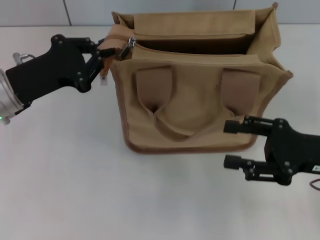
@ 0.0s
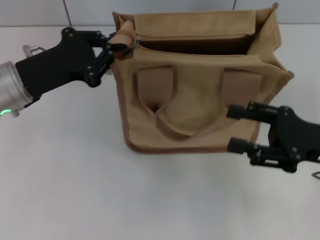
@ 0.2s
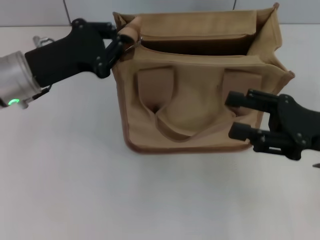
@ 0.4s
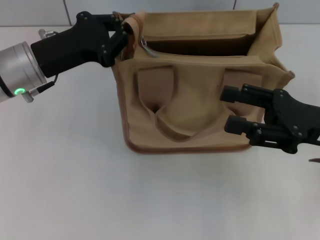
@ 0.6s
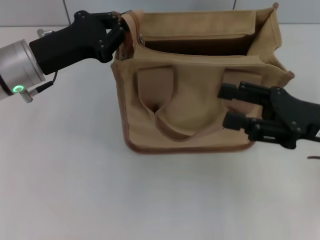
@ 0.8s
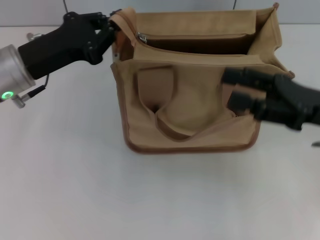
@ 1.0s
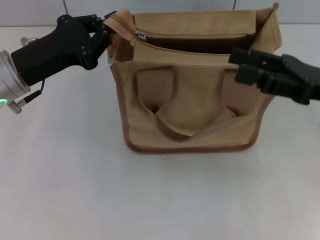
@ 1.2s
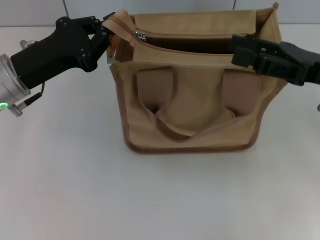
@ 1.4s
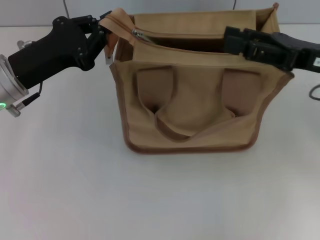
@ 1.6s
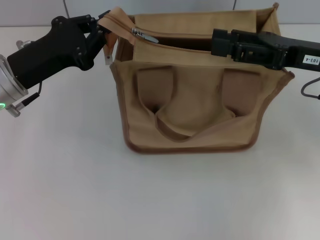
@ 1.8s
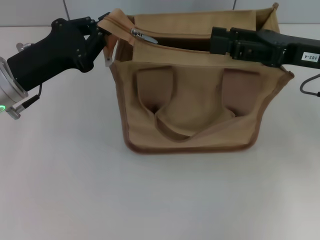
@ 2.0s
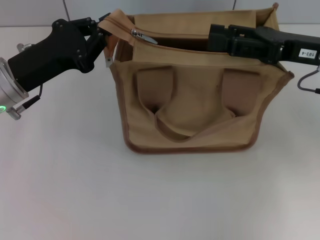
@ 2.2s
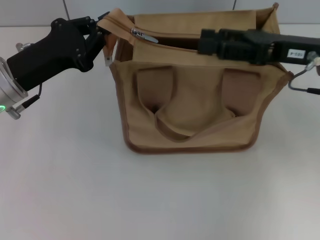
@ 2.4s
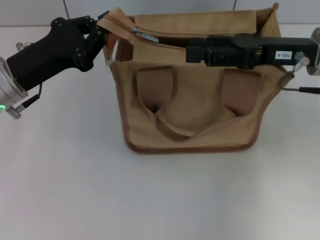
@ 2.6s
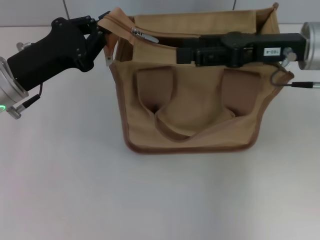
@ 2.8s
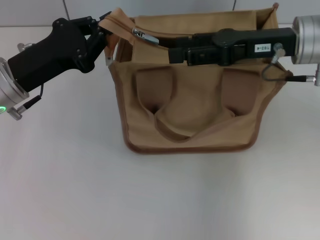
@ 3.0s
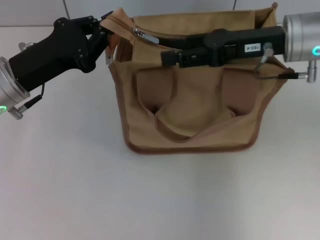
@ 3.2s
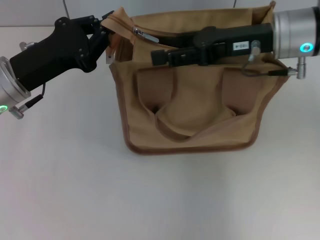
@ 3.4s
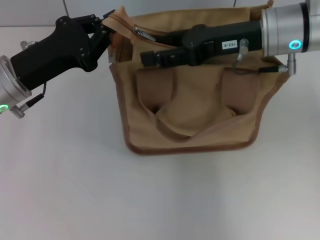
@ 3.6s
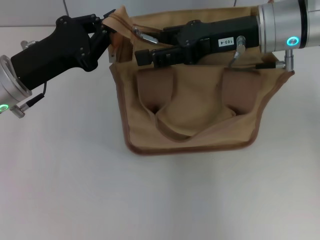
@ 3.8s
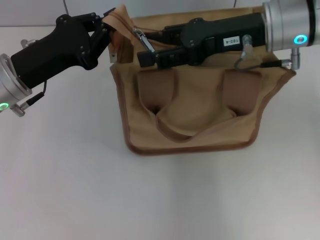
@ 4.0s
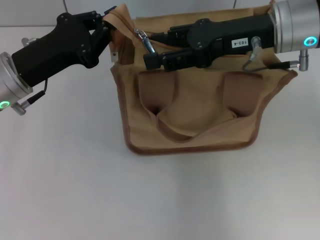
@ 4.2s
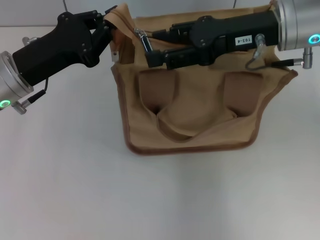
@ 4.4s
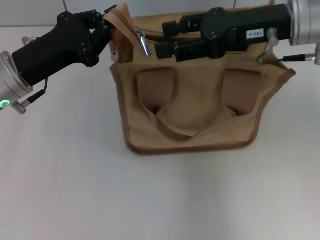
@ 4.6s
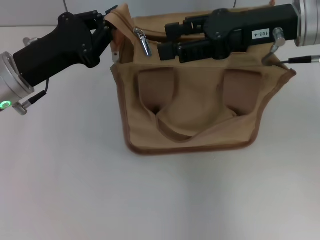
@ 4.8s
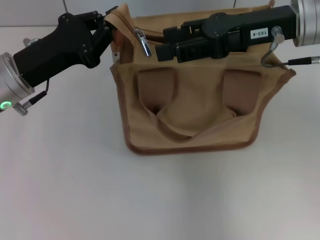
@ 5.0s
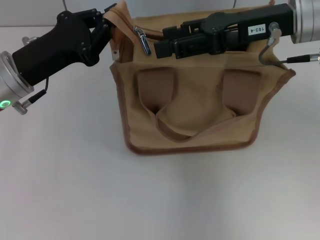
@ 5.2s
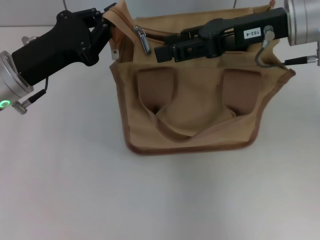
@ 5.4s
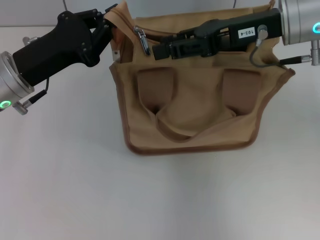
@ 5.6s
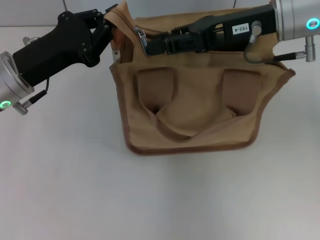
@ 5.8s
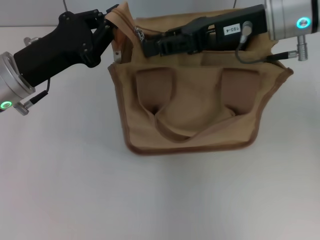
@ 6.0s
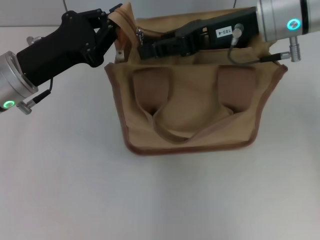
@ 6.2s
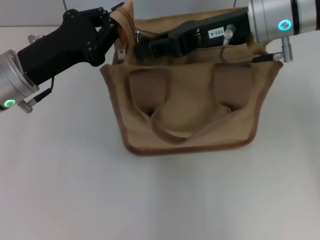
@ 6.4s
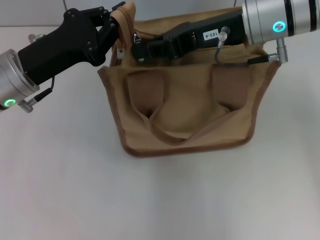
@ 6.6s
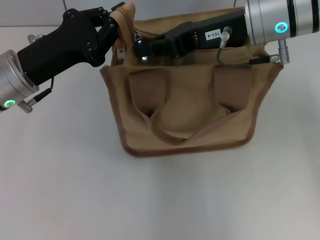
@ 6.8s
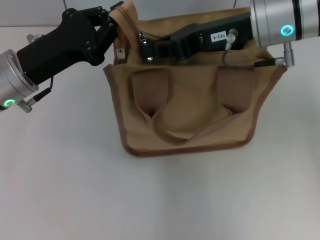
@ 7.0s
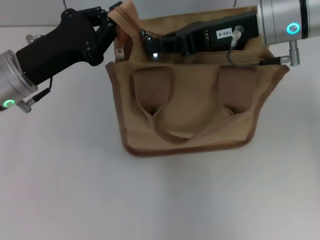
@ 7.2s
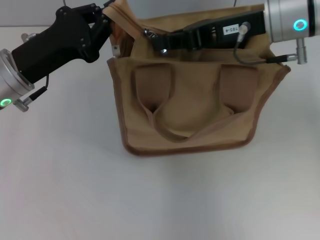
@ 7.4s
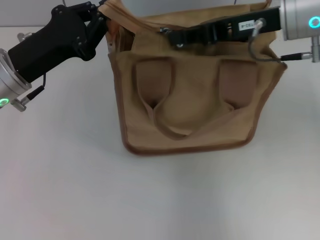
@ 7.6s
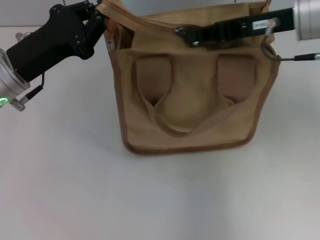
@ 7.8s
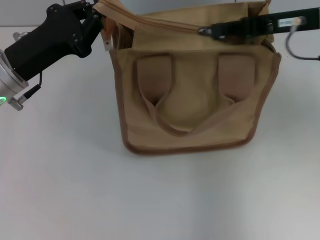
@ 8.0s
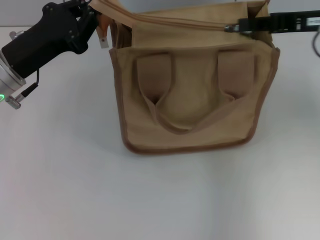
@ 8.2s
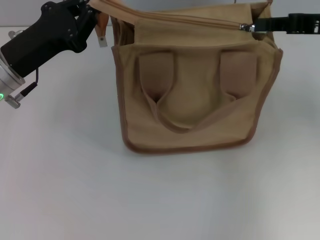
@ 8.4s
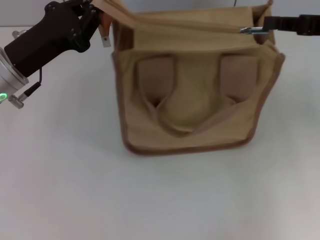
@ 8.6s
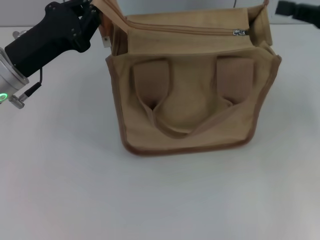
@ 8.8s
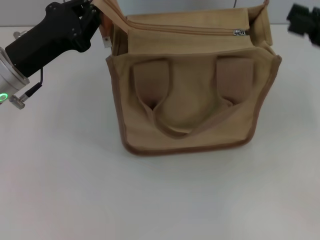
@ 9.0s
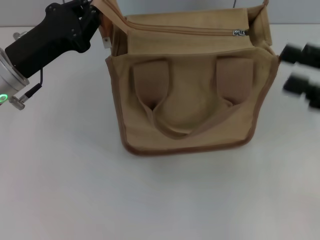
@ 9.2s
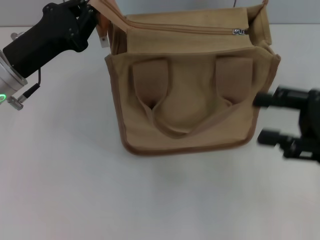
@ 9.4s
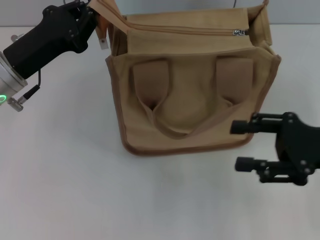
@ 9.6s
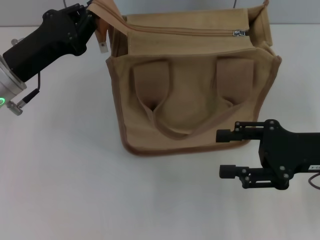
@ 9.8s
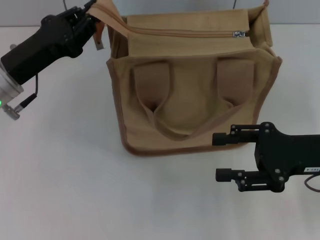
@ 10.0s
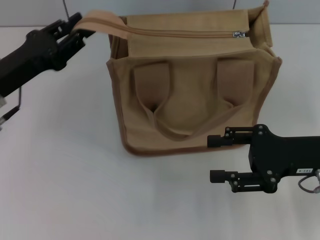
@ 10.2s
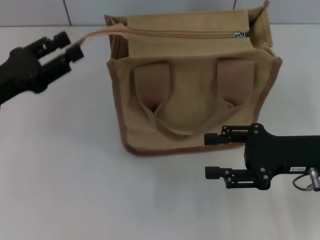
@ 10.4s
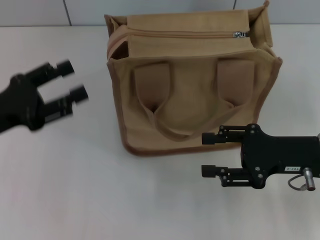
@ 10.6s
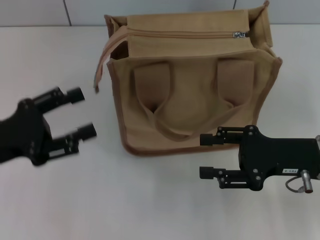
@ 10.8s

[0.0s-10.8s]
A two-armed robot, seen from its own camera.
Step, 0.0s to 8.4s: Pull up the zipper with your right hand.
Step, 8.8s to 10.4s: Grab the zipper with your left hand.
0.0s to 1.6s: The right gripper shifts roughly 10 cm forward and upward.
1.6s to 3.0s: The right gripper travels to the left by roughly 5 cm.
3.0s to 4.6s: The grippers move only a little.
4.6s to 6.2s: The right gripper closes its fingers.
6.2s to 7.8s: The right gripper travels to the right by some 5 cm, and closes its fingers.
7.8s to 9.2s: The right gripper travels backward, to the right and downward by about 15 cm, and opens.
9.2s to 10.8s: The left gripper heads backward and to the left, covering some 10 cm, and opens its fingers; the right gripper moves downward and to the left, approximately 10 cm.

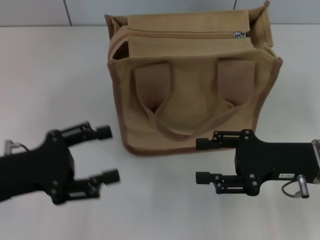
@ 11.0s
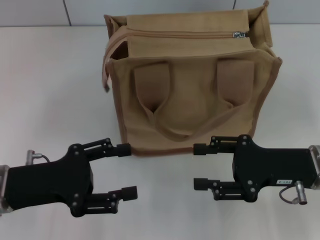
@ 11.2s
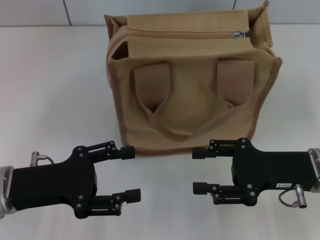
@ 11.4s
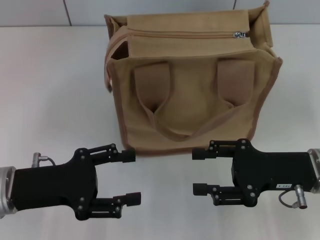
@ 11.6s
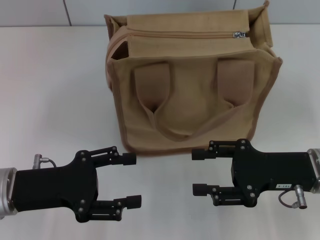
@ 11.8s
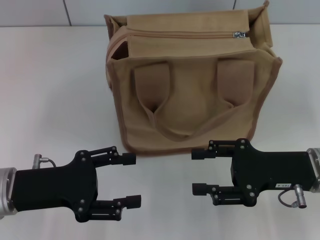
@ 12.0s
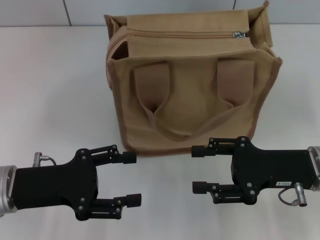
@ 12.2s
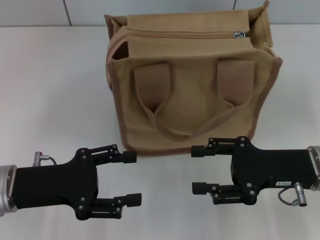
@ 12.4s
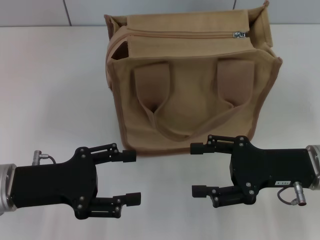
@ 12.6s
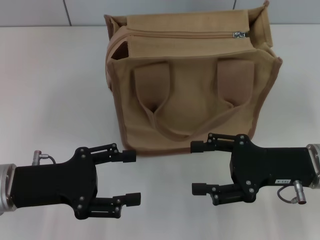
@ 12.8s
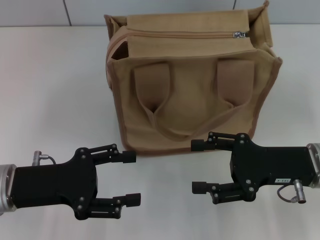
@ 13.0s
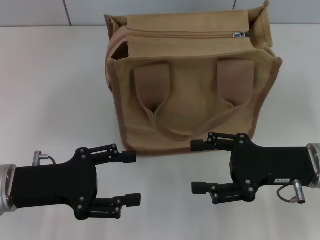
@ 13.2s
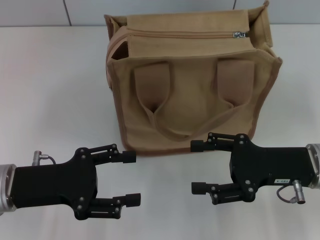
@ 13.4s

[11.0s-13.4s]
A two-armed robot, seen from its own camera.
11.0s to 12.2s: The grippers stay close to where they were, moving slightly.
12.2s to 13.4s: The two grippers keep their place.

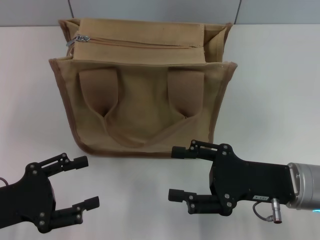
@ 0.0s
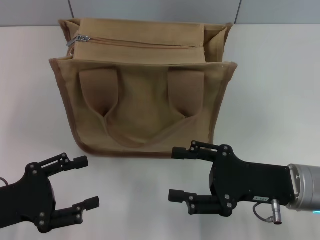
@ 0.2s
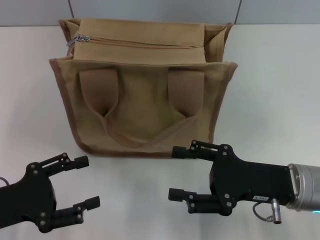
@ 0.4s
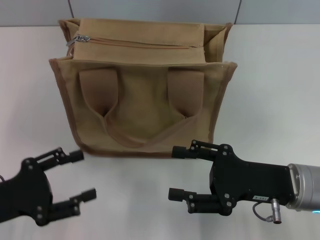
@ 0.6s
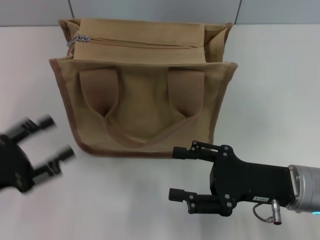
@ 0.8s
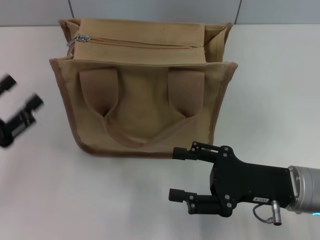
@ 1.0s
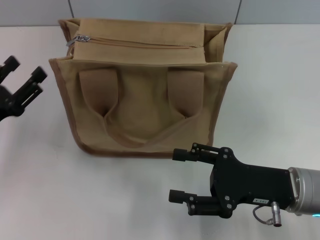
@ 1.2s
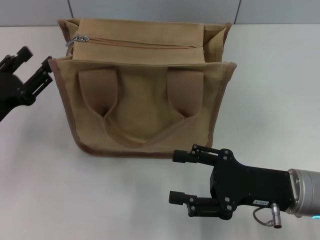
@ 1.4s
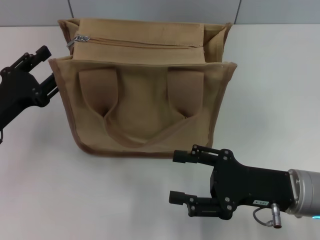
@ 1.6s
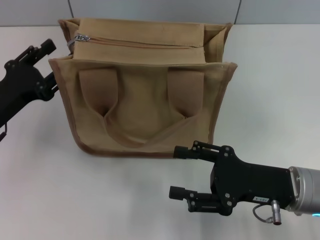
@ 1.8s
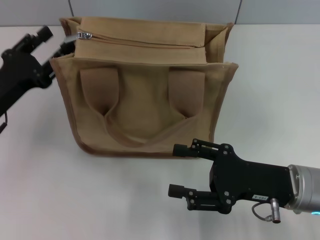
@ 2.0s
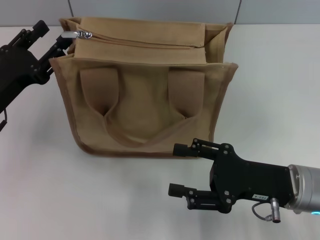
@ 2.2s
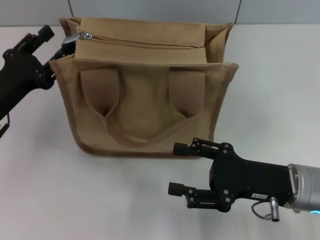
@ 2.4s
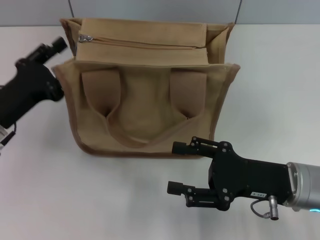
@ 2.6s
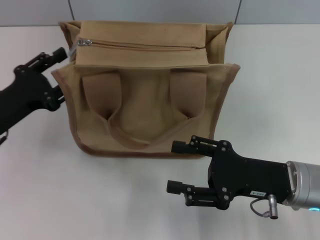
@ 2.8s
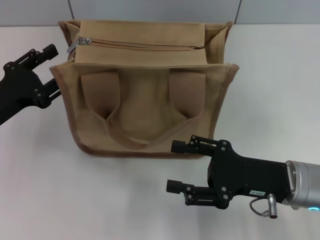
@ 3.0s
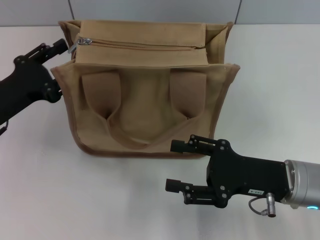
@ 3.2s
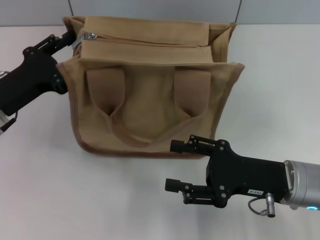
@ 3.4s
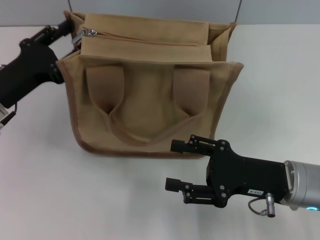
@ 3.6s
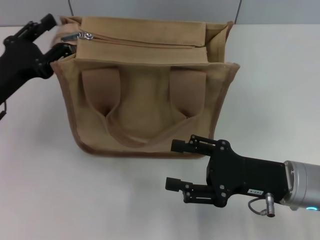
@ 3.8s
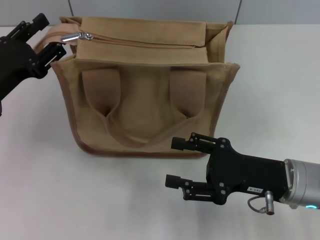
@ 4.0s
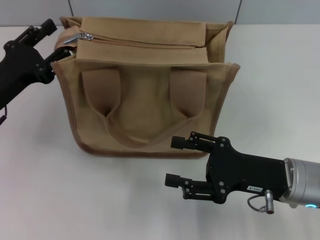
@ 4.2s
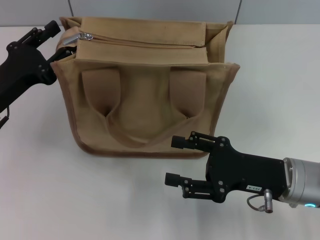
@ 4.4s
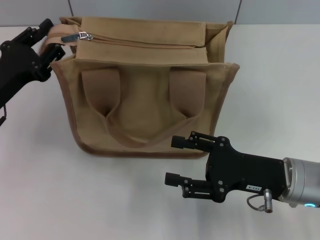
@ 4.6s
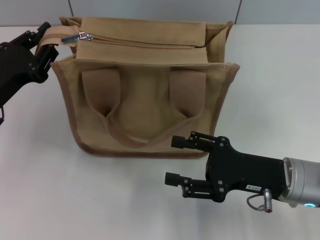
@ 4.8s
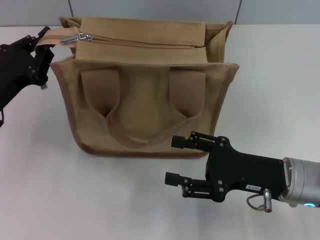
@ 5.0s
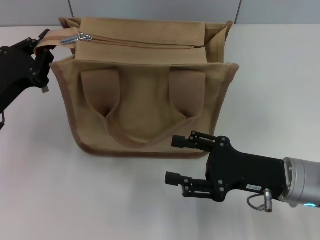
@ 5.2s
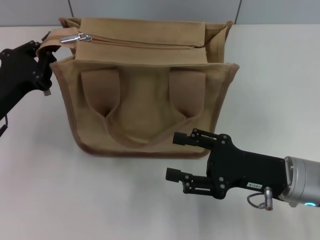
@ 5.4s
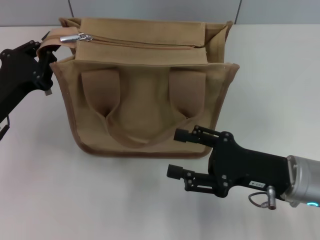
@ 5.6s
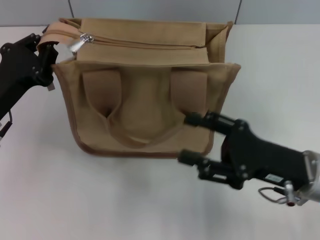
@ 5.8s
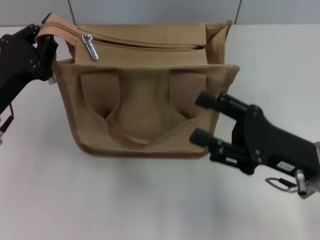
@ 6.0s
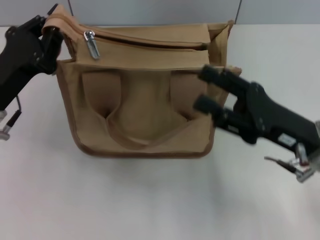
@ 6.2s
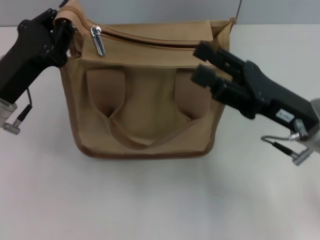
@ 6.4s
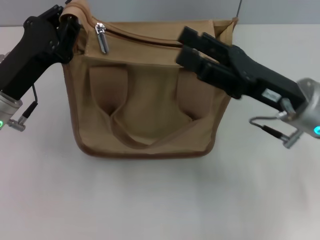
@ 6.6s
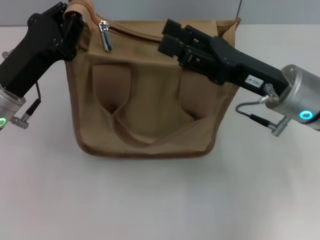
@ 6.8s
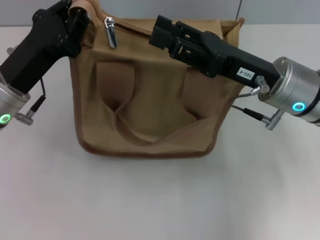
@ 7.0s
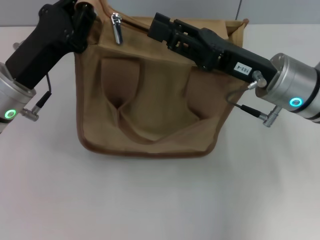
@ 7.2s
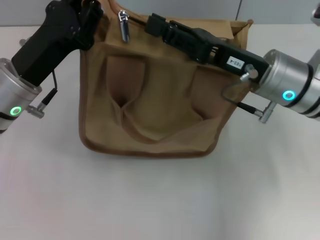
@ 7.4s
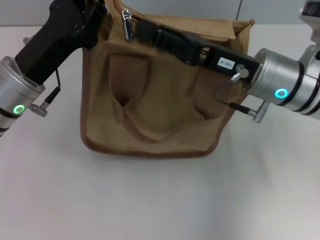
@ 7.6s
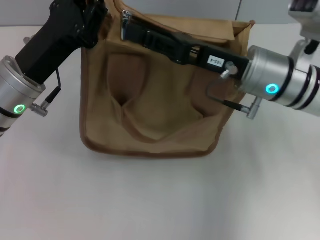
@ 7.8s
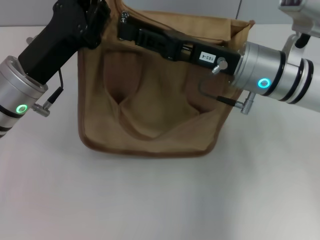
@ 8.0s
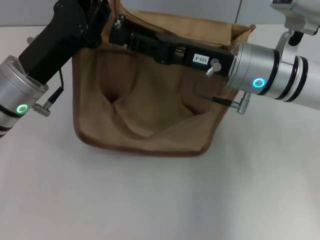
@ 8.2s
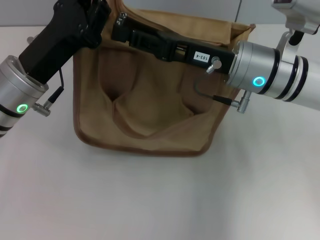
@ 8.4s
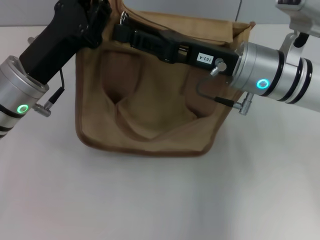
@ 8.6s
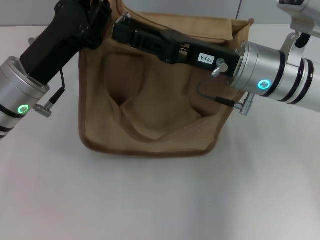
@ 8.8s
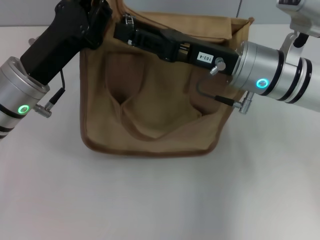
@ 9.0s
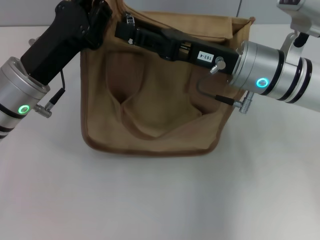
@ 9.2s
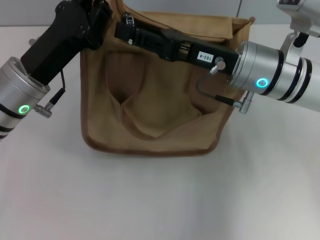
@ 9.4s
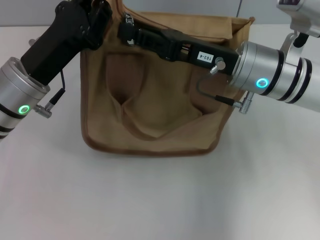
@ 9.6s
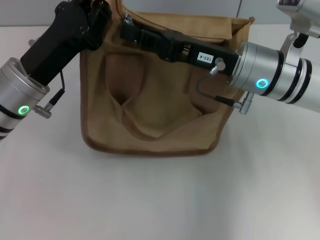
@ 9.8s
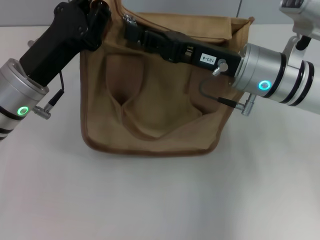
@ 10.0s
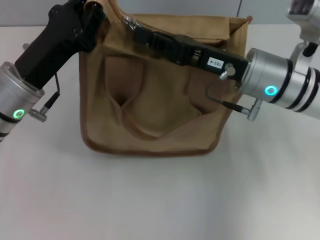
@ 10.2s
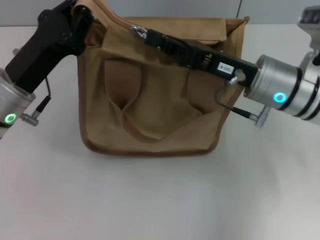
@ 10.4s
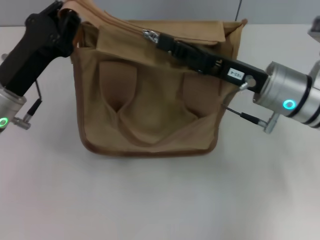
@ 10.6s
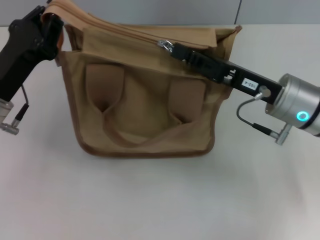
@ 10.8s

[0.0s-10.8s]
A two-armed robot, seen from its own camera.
0.0s to 1.6s: The left gripper heads forward, covering roughly 10 cm.
1.6s to 4.6s: There are only small adjustments of the grippers.
4.6s to 6.2s: The left gripper closes up.
6.2s to 7.8s: The right gripper is displaced forward and to the left by approximately 10 cm, and closes. Meanwhile the left gripper shifts by about 5 cm.
7.8s to 9.2s: There are only small adjustments of the grippers.
9.2s to 10.8s: The right gripper goes about 5 cm to the right, and closes. The left gripper ends up about 5 cm from where it was.
